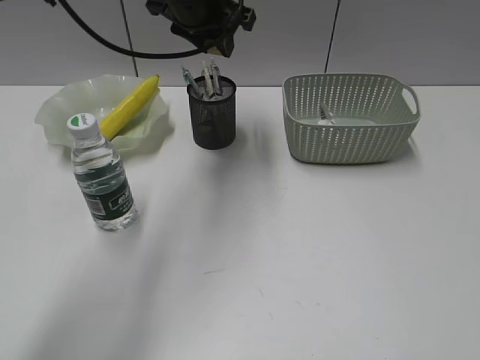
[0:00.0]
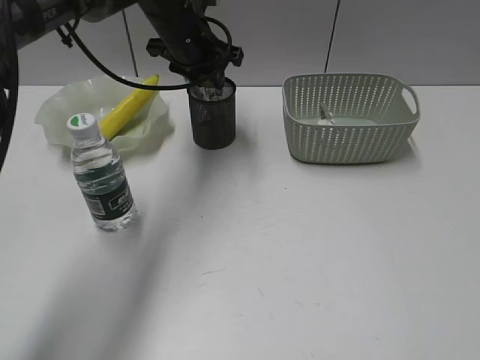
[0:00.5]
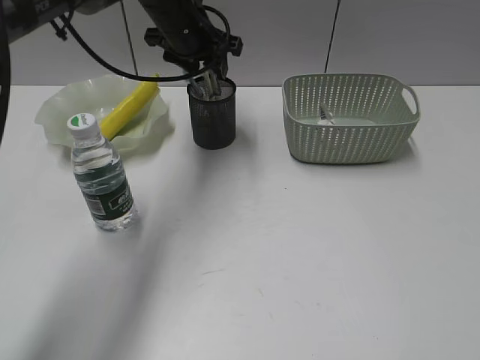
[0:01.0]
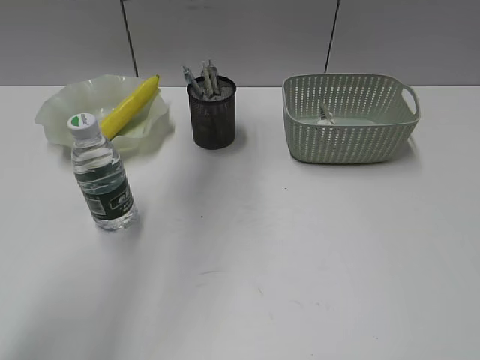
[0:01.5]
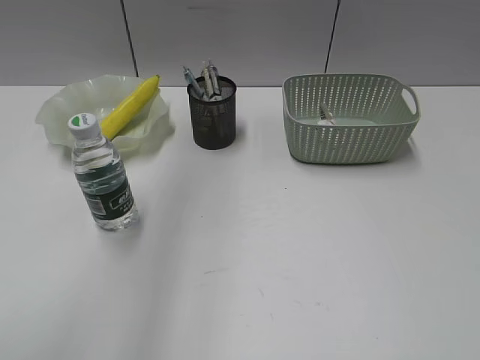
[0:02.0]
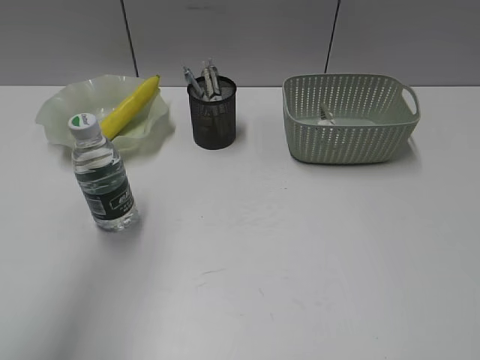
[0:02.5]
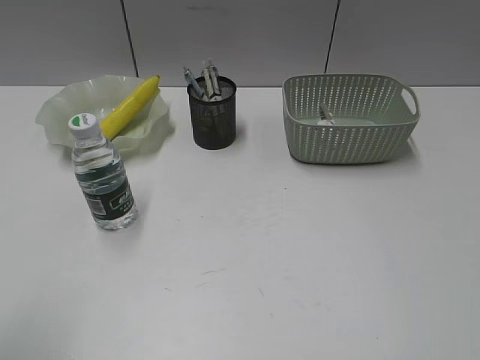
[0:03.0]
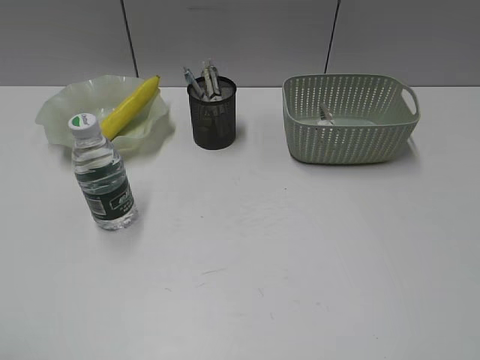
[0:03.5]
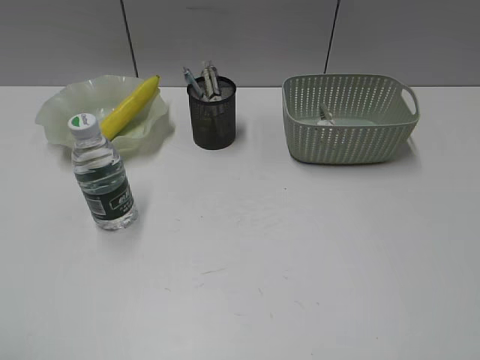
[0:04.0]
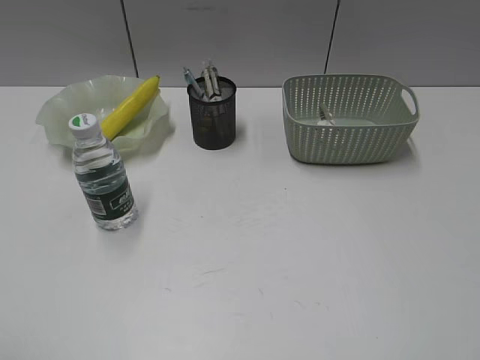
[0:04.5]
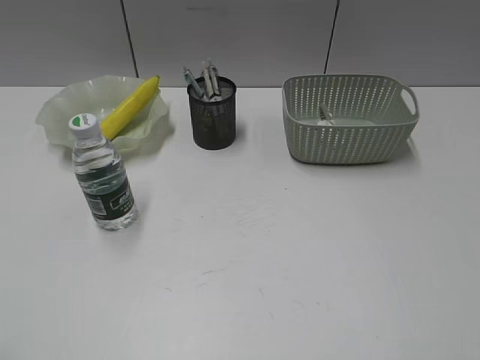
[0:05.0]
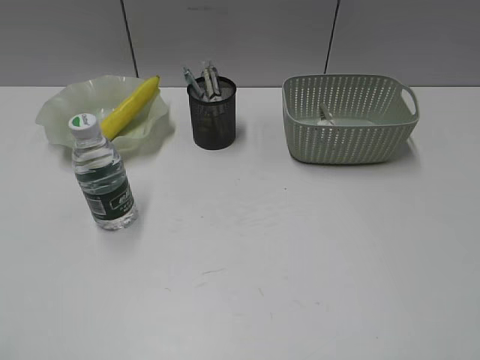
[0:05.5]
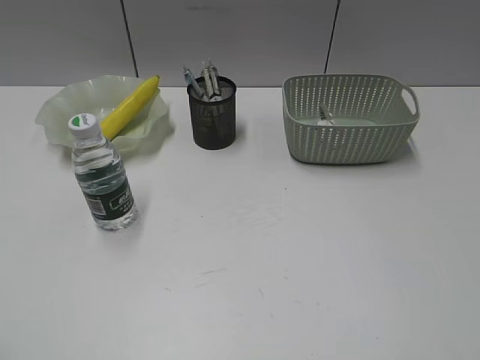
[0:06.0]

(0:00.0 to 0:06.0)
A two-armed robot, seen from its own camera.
Step, 0:00.0 - 0:01.0: Place the eraser in pen holder with left gripper.
0:00.0 - 0:02.0: The left gripper travels upward, backward and to the left by approximately 30 cm.
0:02.0 - 0:04.0: The left gripper heads backward, downward and to the left, covering approximately 40 cm.
